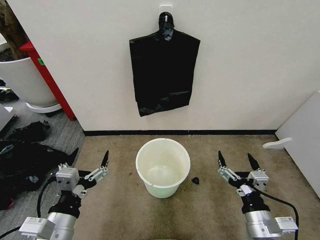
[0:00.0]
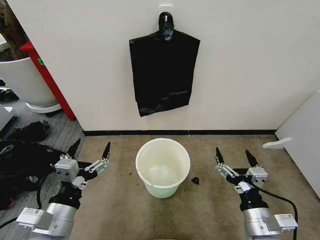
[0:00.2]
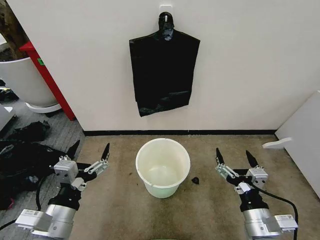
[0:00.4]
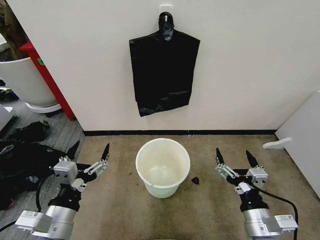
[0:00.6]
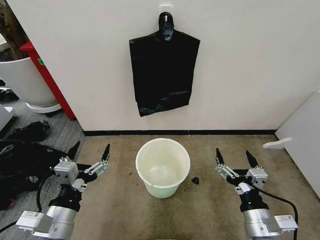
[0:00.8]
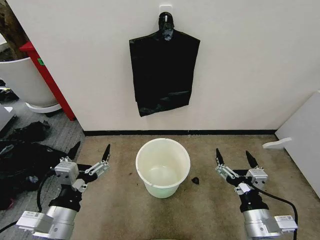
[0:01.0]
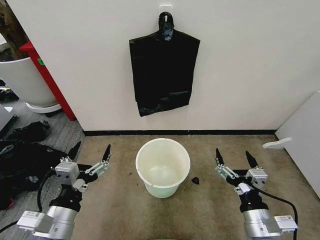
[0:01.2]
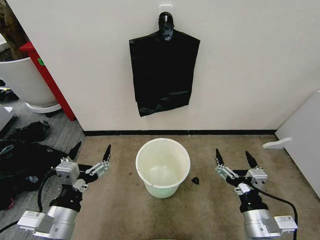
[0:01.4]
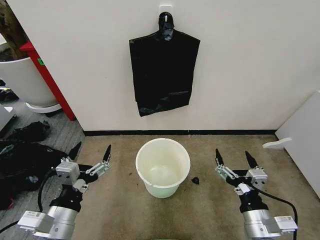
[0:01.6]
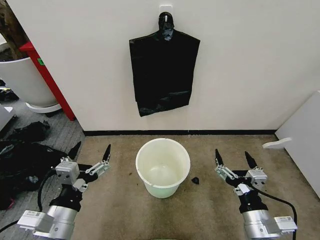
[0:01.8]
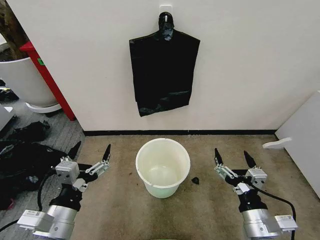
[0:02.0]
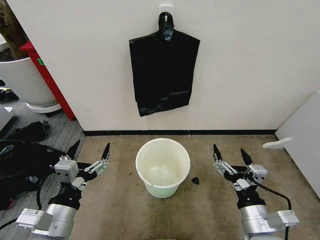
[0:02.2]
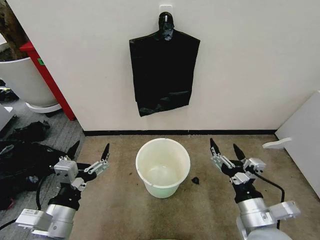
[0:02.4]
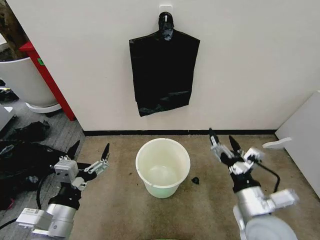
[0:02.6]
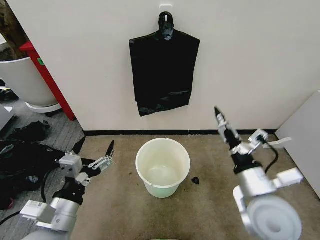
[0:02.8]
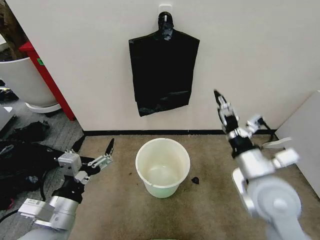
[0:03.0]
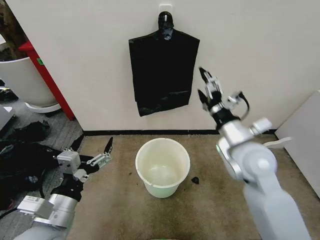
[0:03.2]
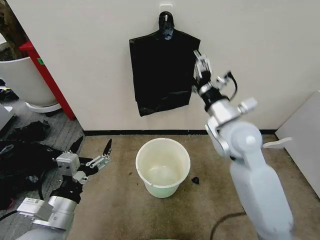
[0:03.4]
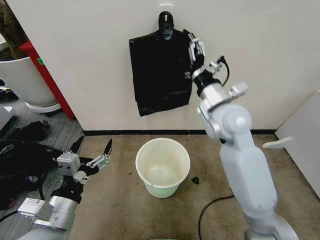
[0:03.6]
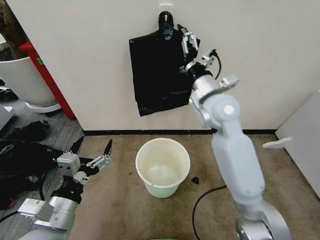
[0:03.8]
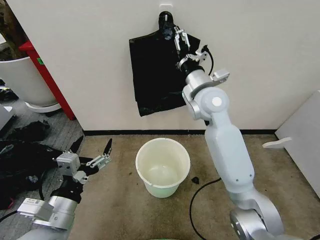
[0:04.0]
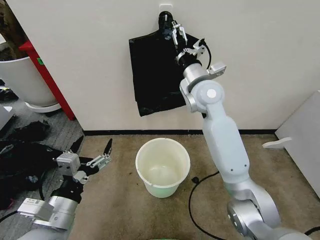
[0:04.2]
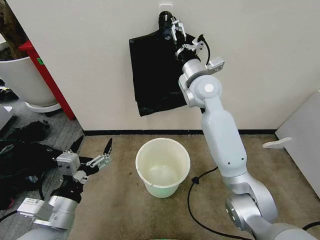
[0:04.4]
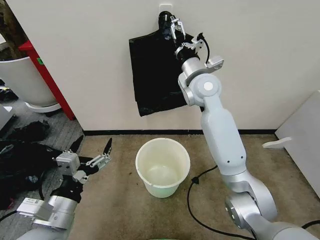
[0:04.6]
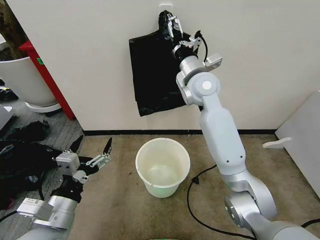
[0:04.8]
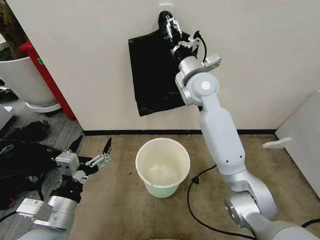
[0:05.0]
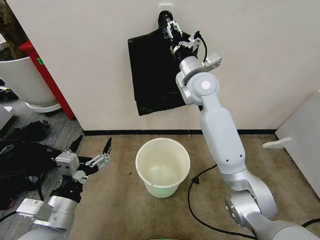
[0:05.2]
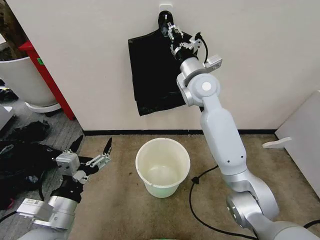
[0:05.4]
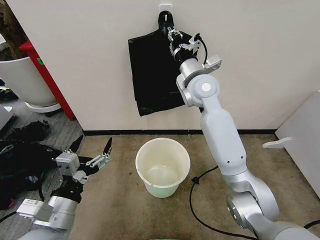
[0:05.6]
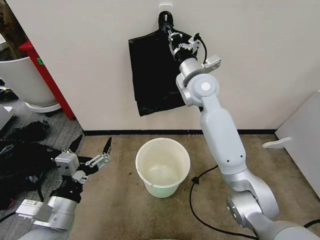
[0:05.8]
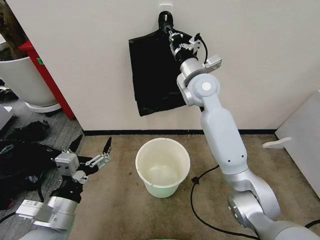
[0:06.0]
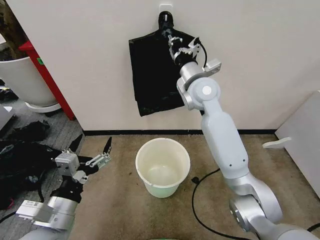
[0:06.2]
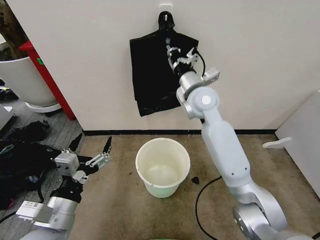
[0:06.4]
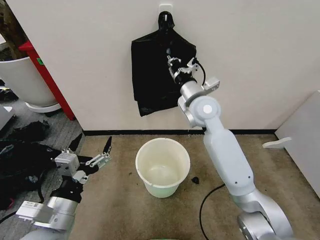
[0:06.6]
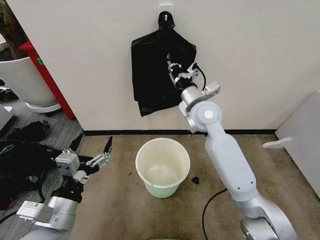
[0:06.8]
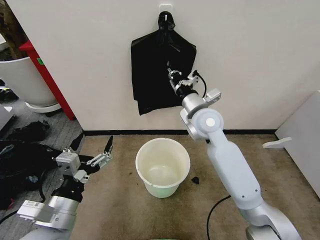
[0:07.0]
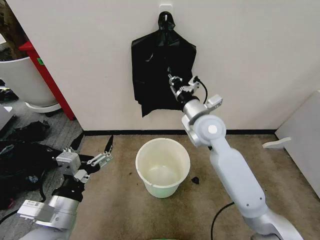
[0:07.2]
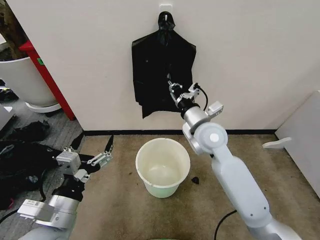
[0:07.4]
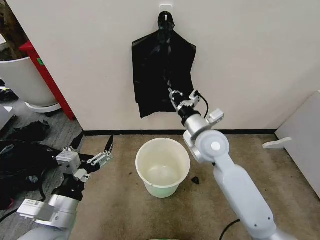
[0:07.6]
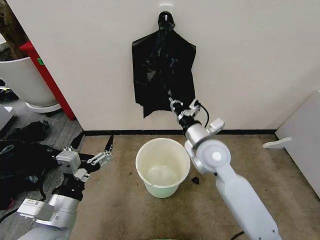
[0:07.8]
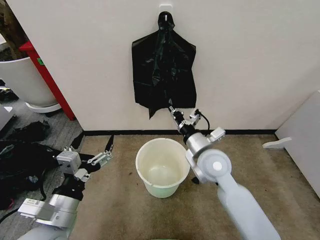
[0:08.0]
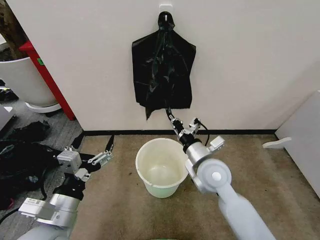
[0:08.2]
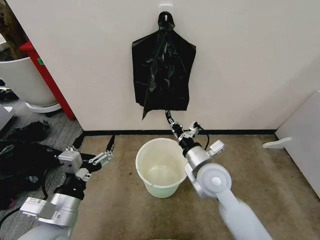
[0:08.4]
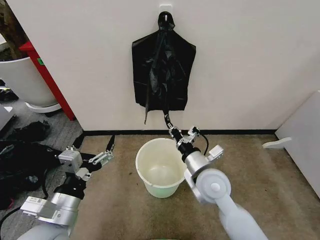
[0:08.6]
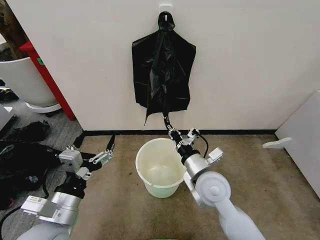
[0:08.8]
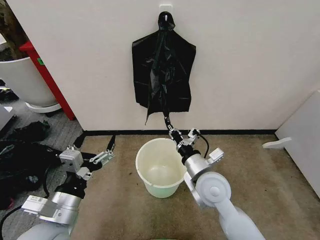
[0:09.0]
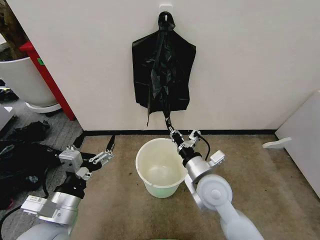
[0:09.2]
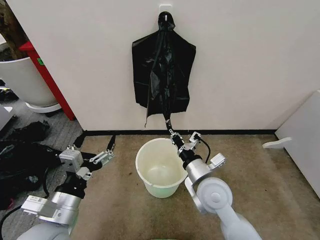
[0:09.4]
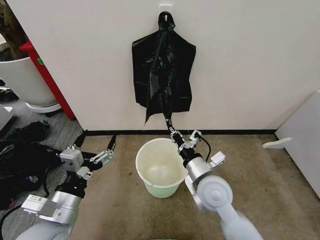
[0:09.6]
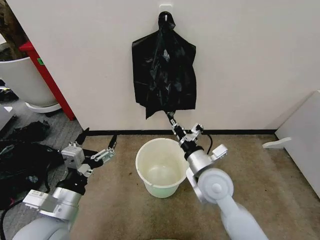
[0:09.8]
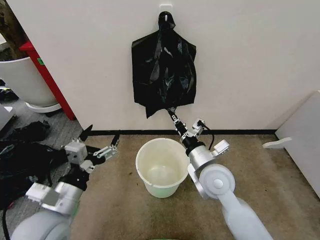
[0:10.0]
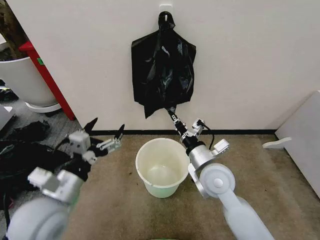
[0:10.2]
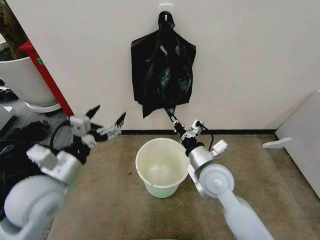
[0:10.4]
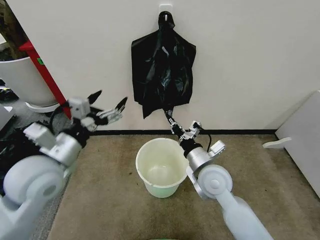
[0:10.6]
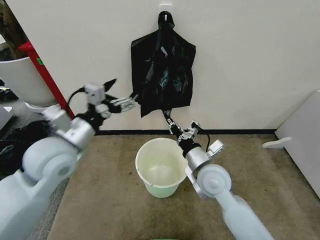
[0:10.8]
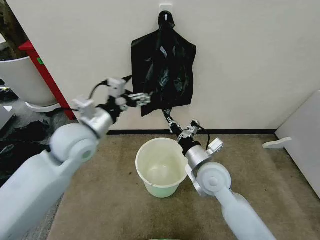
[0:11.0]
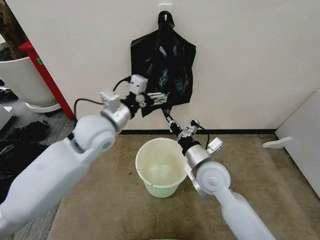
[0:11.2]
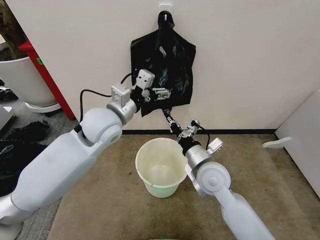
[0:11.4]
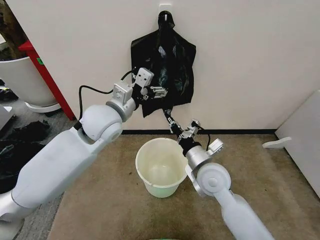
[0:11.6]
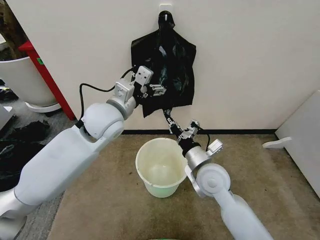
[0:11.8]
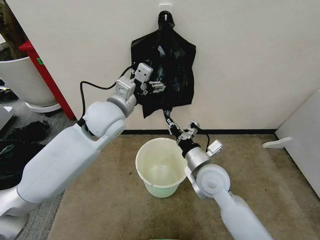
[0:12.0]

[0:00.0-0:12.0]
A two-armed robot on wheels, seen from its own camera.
Task of the whole recording: Place the garbage bag over the trash bin.
0:01.6 to 0:03.0: The right gripper travels upward and forward by some 15 cm.
0:03.0 to 0:04.4: The right gripper heads forward, upward and to the left, covering about 30 cm.
0:04.4 to 0:06.0: The right gripper closes.
0:06.0 to 0:07.6: The right gripper travels downward and backward by about 15 cm.
0:07.6 to 0:09.0: The right gripper is displaced backward and downward by about 10 cm.
0:09.0 to 0:10.4: The left gripper shifts about 10 cm forward and upward.
0:10.4 to 0:12.0: The left gripper is displaced forward, to the right and upward by approximately 20 cm.

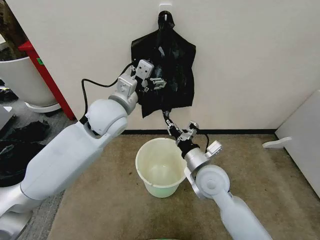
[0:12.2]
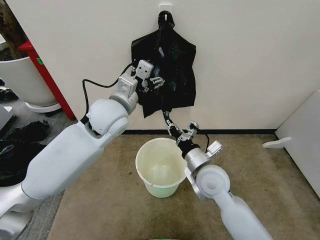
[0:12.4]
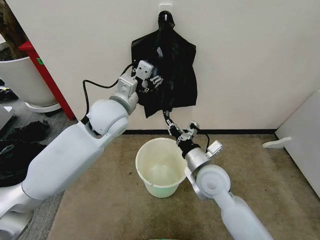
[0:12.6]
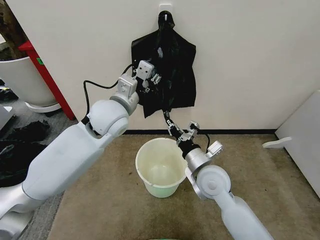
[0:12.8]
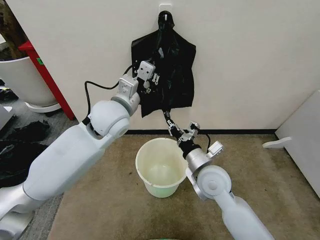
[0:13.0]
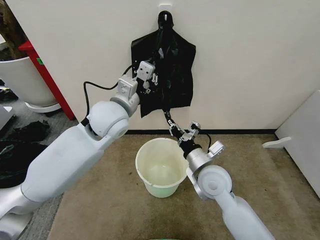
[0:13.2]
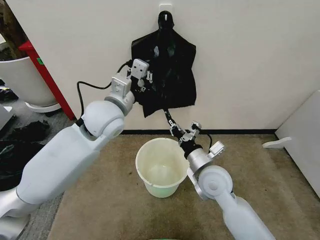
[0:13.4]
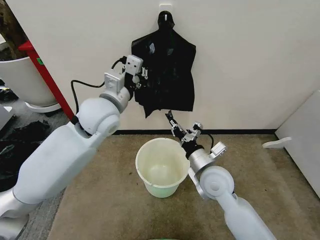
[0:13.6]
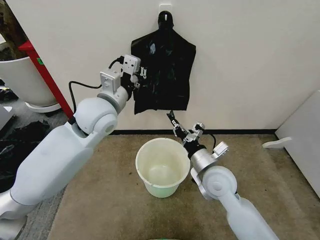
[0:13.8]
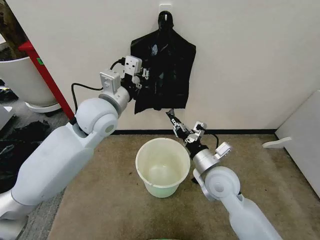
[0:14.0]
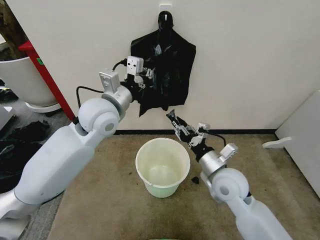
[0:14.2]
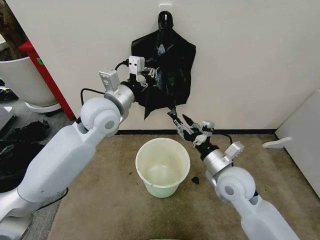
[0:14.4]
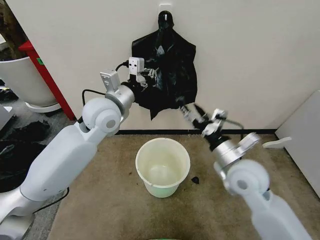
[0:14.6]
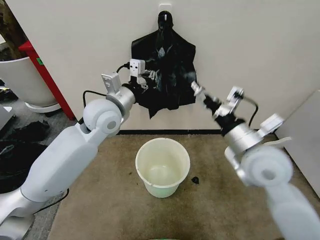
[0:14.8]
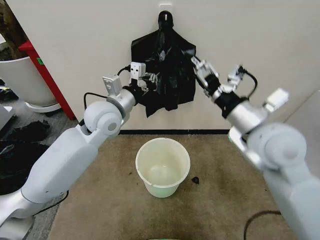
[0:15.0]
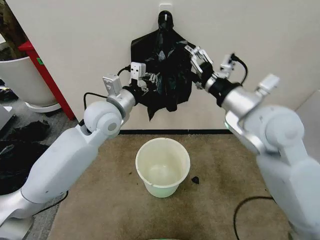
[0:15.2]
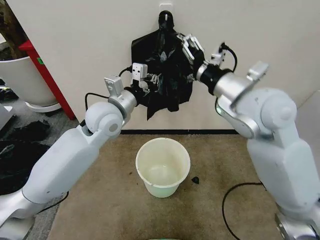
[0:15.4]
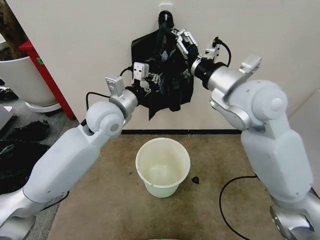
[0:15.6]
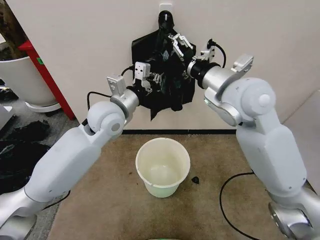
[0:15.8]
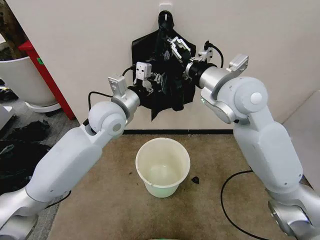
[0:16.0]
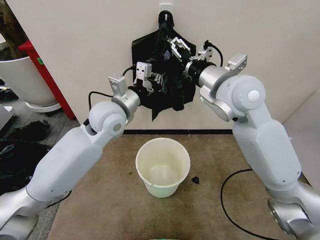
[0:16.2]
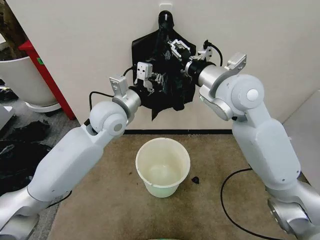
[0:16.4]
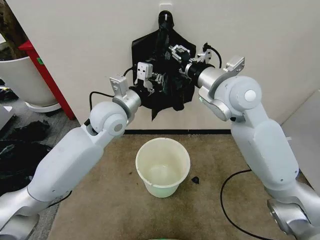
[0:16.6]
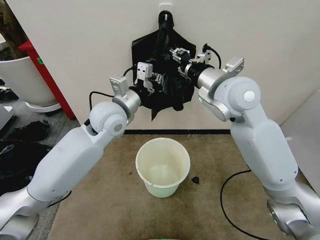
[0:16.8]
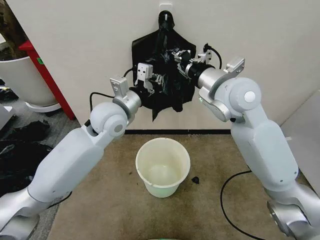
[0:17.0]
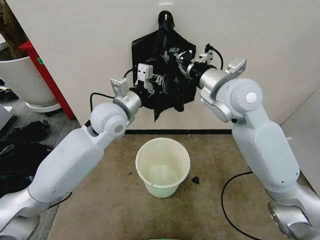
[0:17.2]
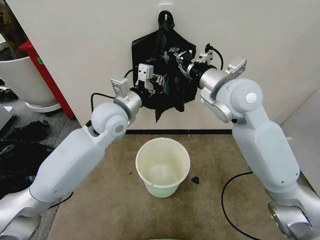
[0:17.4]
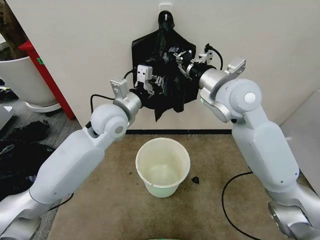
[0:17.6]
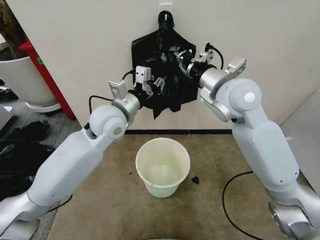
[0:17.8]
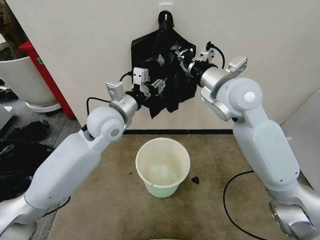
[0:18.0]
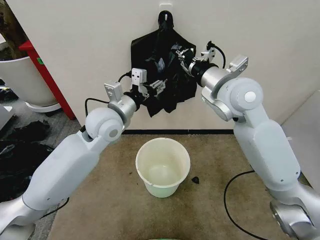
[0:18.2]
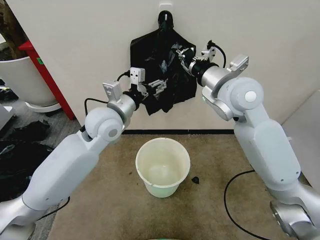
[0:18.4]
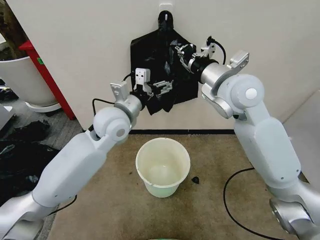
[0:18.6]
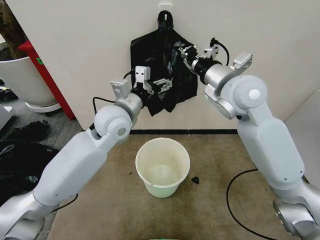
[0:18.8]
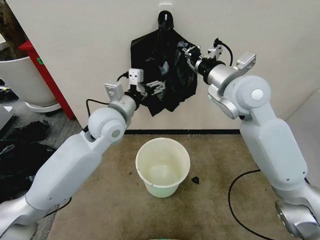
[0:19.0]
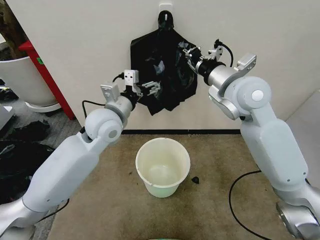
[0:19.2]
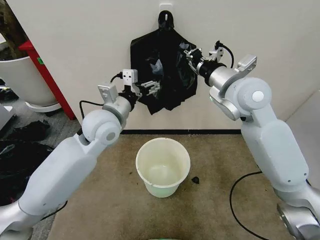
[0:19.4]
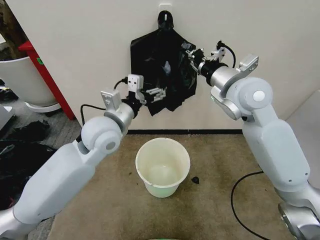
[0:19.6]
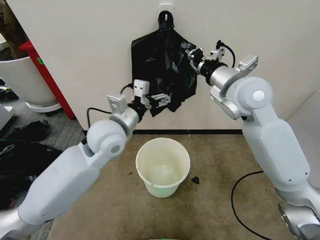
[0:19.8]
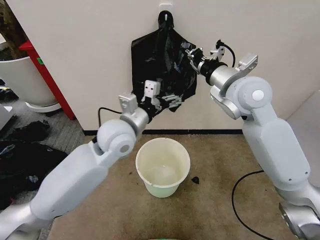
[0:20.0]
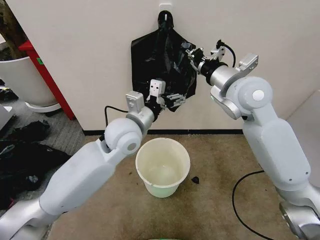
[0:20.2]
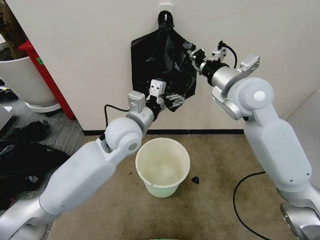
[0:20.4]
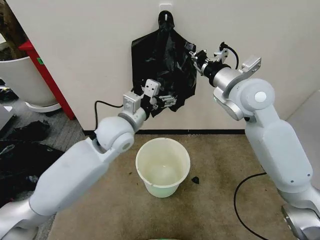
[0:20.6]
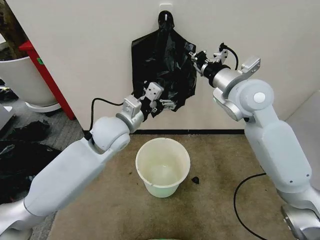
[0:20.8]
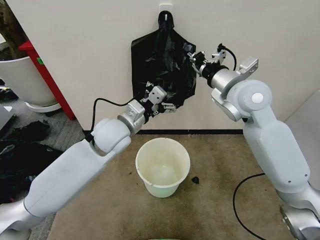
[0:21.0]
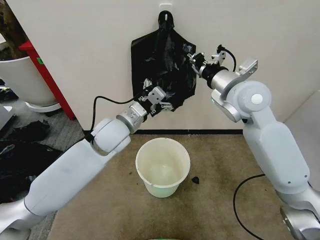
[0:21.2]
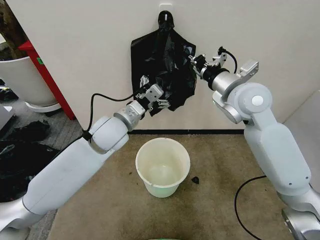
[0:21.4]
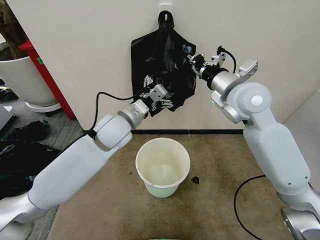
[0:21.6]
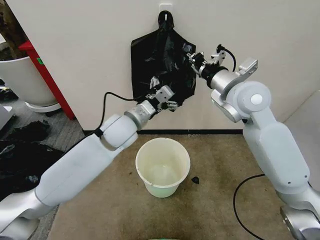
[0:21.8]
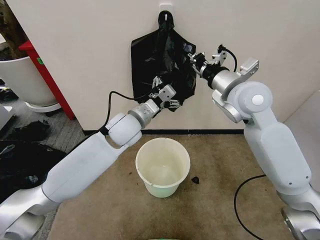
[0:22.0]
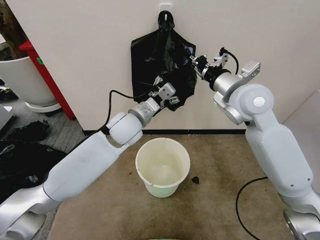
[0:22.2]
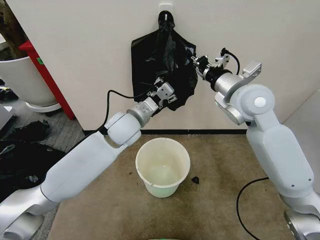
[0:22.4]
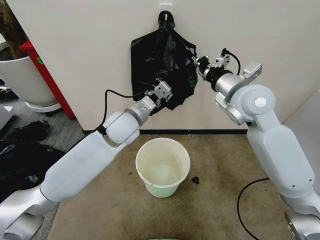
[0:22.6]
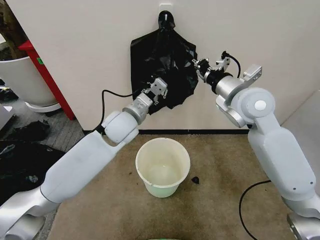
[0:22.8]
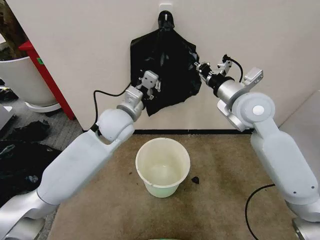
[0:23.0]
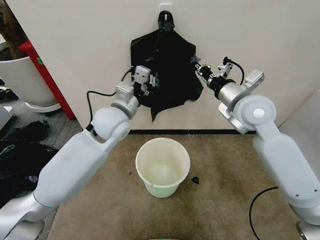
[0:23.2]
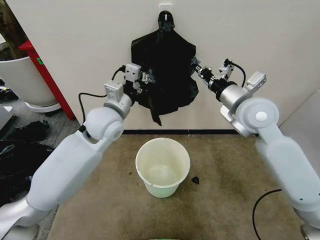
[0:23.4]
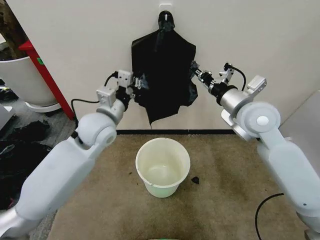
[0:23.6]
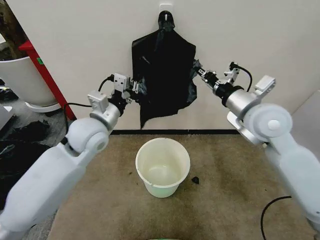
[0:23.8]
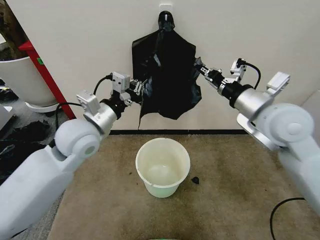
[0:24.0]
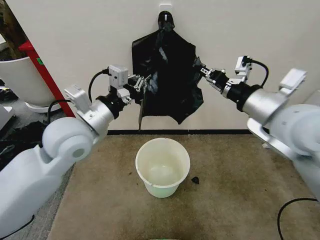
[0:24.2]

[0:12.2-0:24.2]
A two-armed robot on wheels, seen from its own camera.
Task of the whole recording: Place the garbage bag over the trash bin.
0:12.2 to 0:13.8: The left gripper closes its fingers.
0:13.8 to 0:15.2: The right gripper is displaced upward by approximately 20 cm, and opens up.
0:15.2 to 0:16.6: The right gripper heads forward, covering about 5 cm, and closes its fingers.
0:16.6 to 0:18.2: The left gripper opens up. Meanwhile the right gripper closes.
0:18.2 to 0:19.8: The left gripper opens.
0:21.2 to 0:22.6: The left gripper closes.
0:22.6 to 0:24.2: The left gripper is displaced backward, to the left and upward by roughly 15 cm, while the right gripper heads backward, covering some 10 cm.
